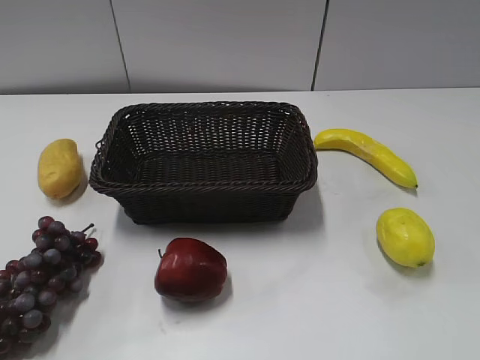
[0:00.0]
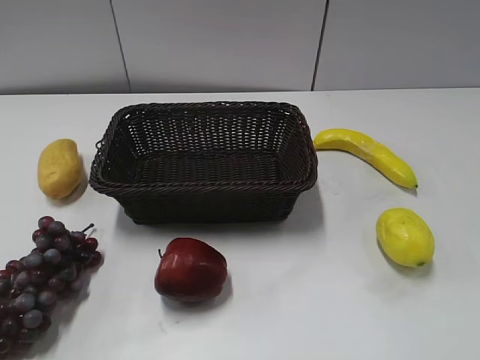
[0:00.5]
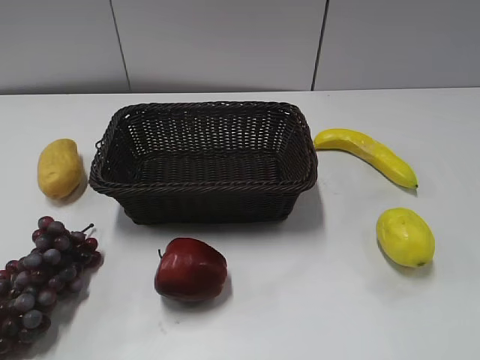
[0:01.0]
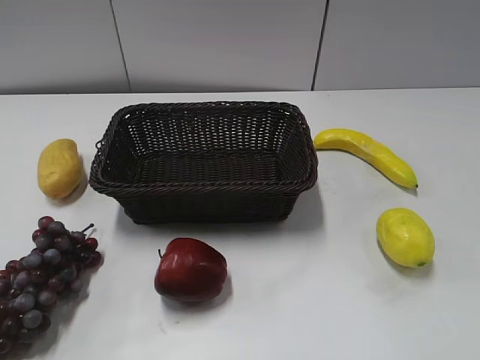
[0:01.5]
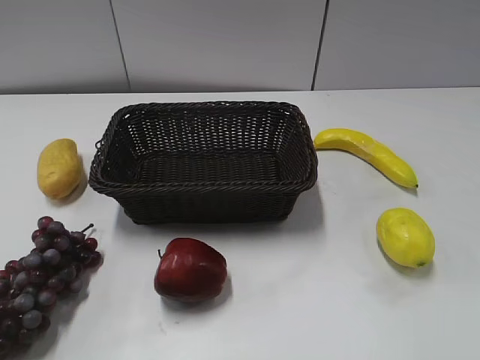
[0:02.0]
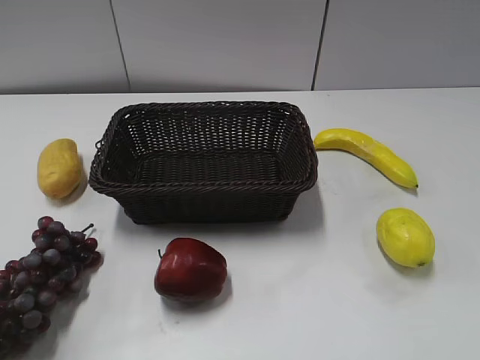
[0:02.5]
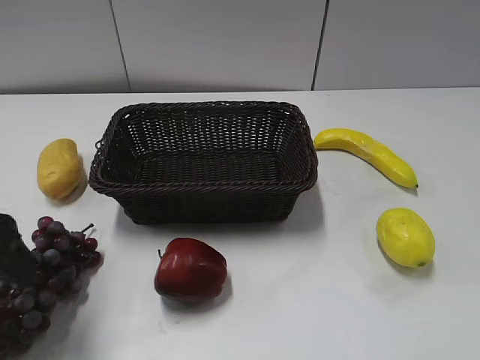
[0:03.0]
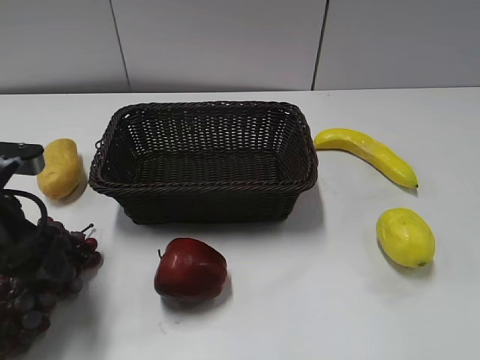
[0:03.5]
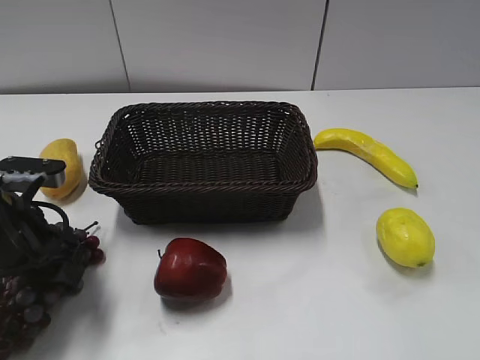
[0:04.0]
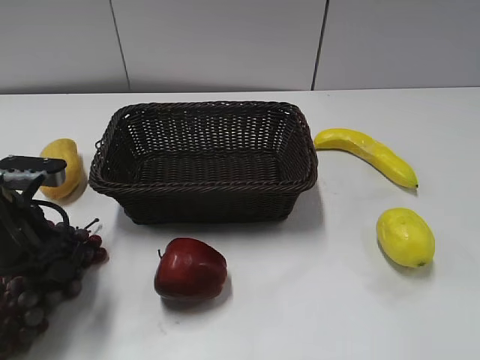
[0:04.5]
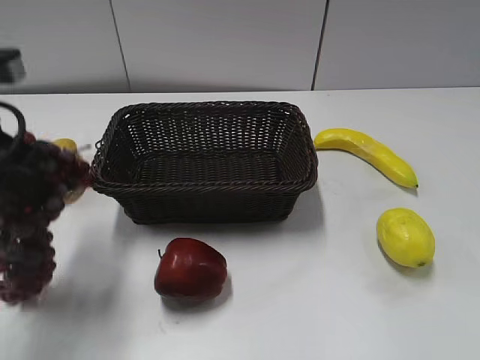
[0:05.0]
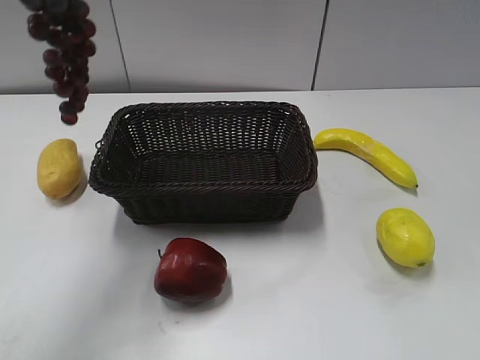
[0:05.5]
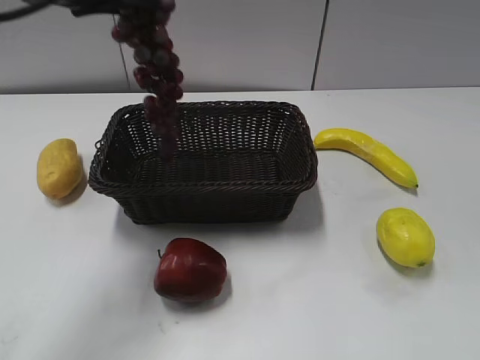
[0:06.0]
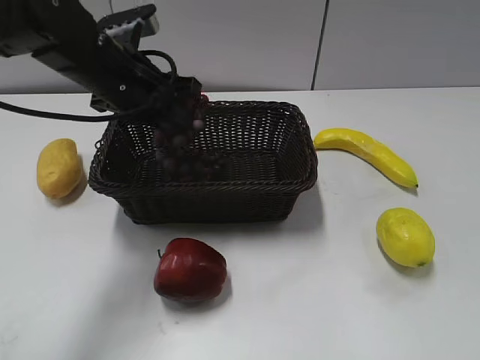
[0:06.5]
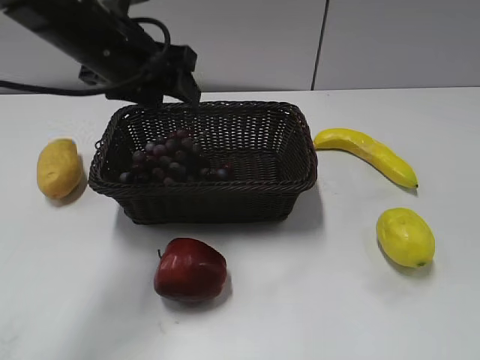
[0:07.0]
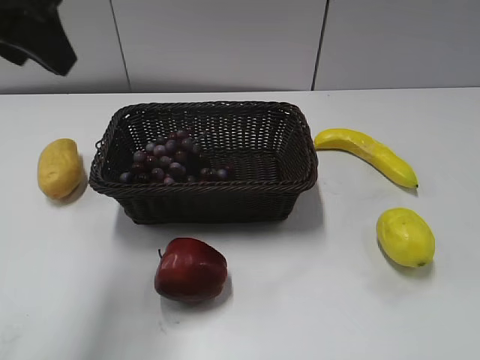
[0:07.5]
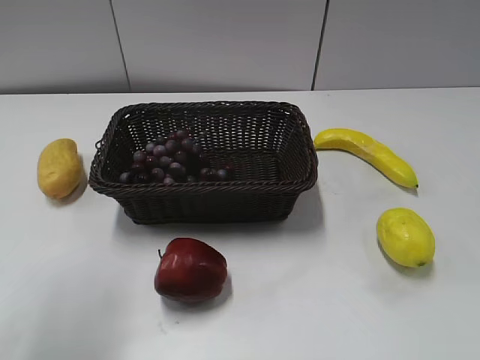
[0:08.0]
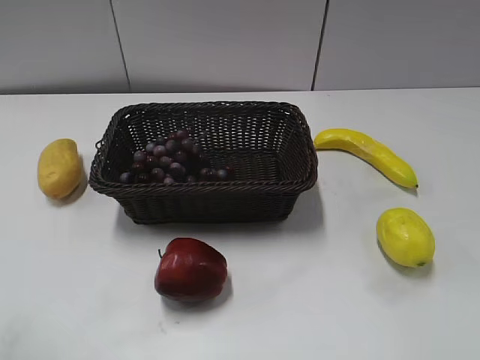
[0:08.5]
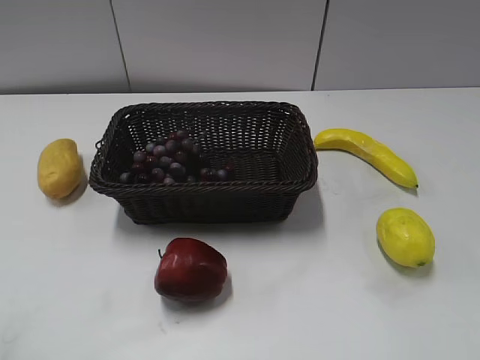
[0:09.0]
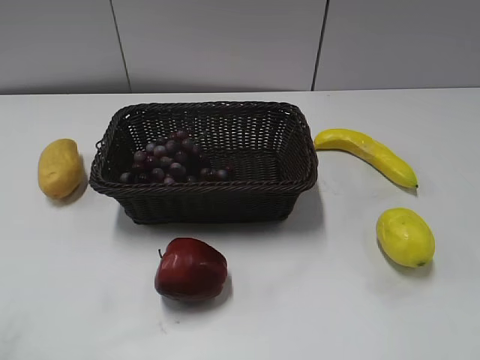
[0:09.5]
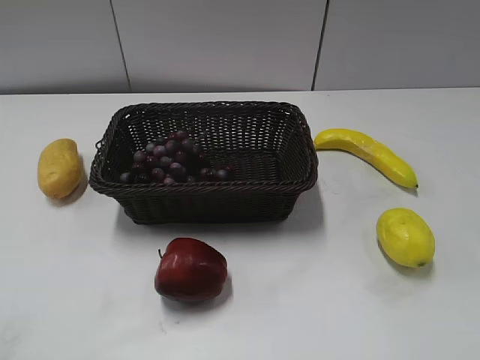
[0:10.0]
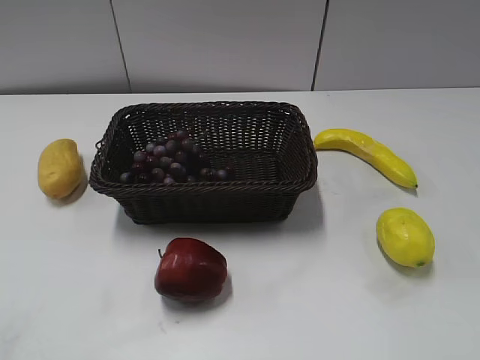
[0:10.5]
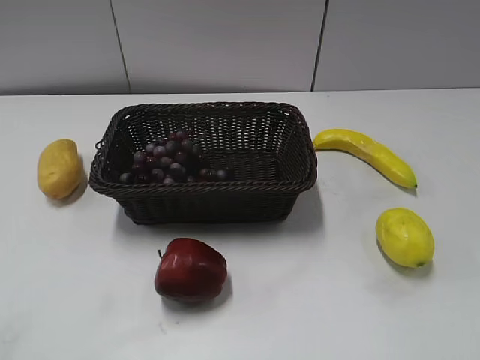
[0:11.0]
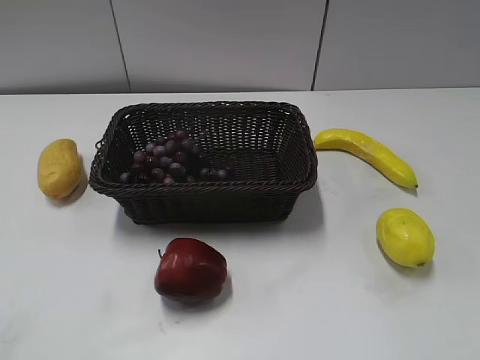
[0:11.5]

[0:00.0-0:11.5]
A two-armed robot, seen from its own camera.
Step, 0:03.0 to 0:04.5: Grasp the grape with left gripper.
Step, 0:05.0 to 0:06.5: Place the grape in the basket with left gripper.
0:02.0 to 0:04.0: The left gripper is displaced downward, forward and to the right by roughly 20 cm.
0:04.0 to 0:06.0: The left gripper is displaced upward by some 20 cm, and closes its fingers.
0:06.0 to 0:07.5: The left gripper heads backward, covering roughly 5 cm, goes downward and returns, some 10 cm each way, and opens its fingers.
0:07.5 to 0:09.5: The left gripper heads backward, downward and to the left, covering about 25 cm.
